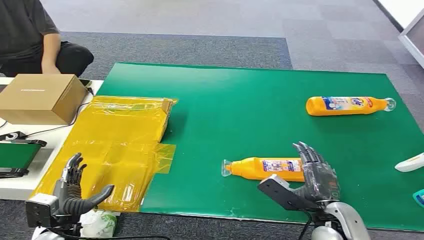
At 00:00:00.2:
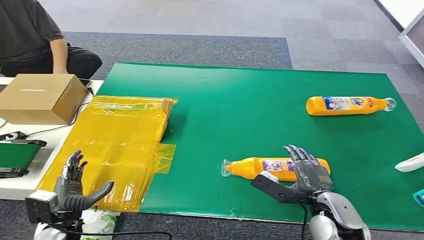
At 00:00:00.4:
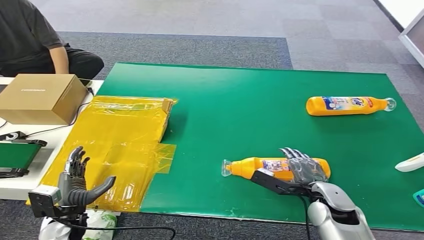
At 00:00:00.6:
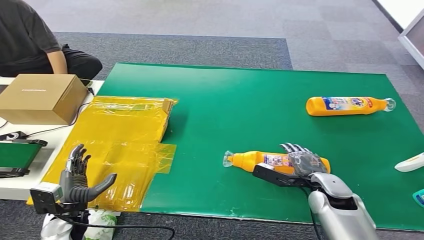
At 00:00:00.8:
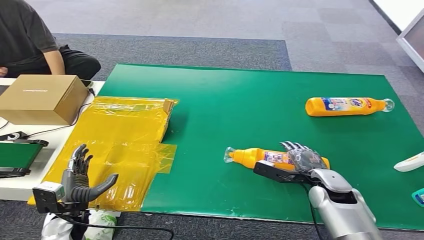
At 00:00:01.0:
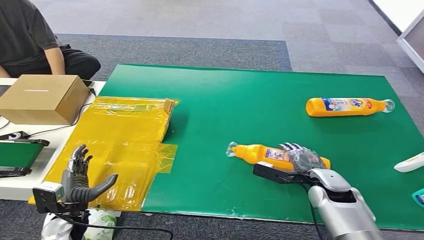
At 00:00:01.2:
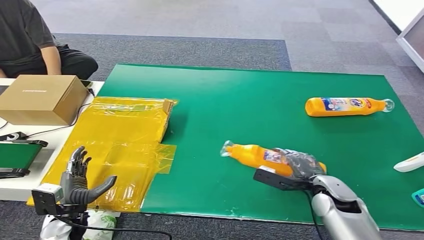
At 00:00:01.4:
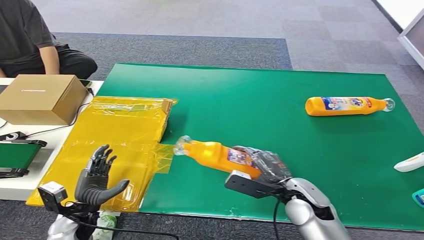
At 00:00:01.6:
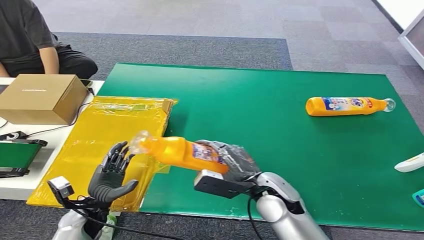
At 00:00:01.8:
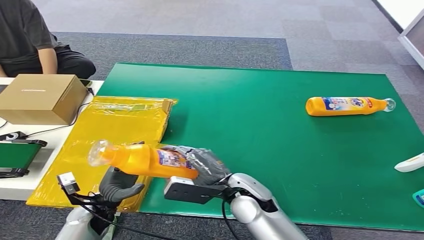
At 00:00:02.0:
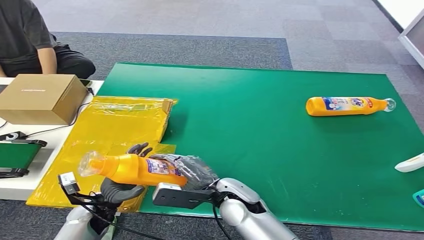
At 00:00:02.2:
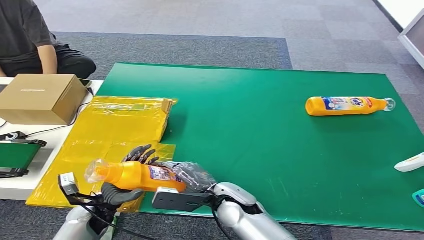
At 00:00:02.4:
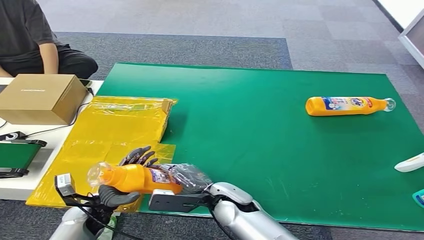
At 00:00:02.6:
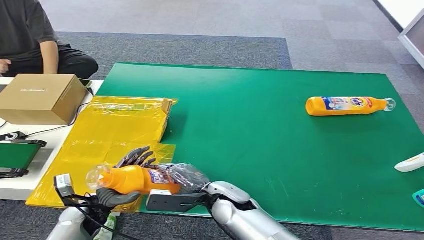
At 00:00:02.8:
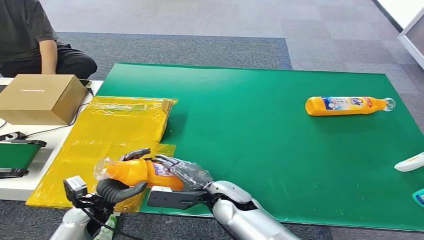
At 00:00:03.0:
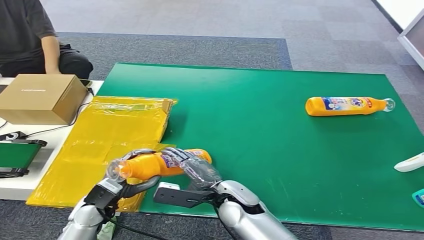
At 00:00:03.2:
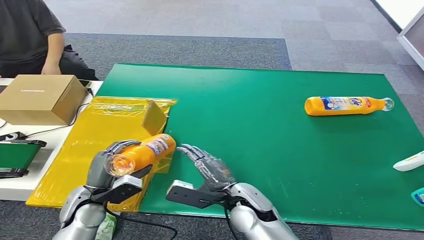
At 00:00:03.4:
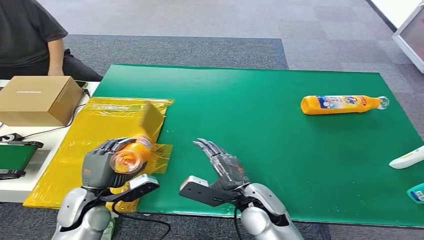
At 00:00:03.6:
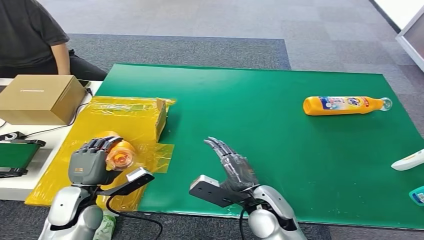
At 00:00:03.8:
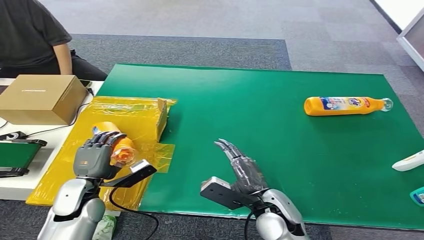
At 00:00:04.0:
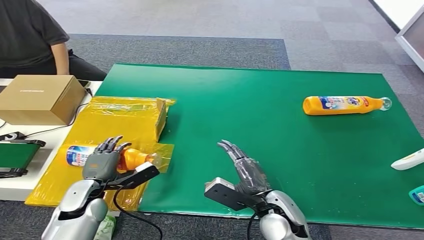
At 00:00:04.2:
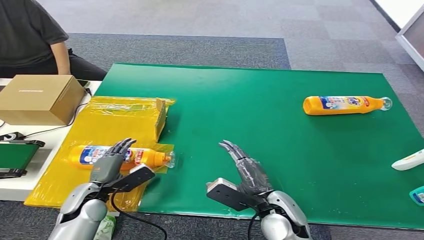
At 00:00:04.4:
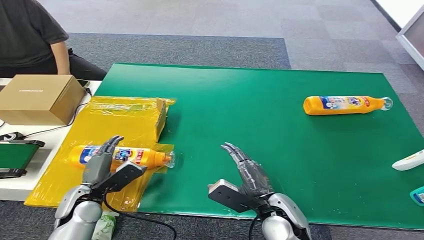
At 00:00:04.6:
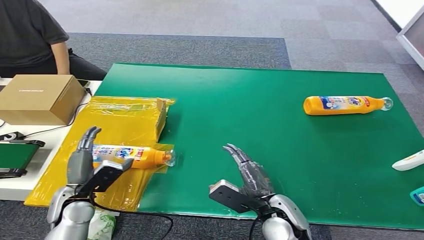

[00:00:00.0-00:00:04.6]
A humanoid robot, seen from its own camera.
Step, 00:00:00.0 to 00:00:01.4: Pick up the bottle from the table.
Step, 00:00:01.6 to 00:00:04.6: Turn the bottle to the front side.
00:00:01.6 to 00:00:03.0: The right hand heads to the left, covering some 10 cm.
00:00:03.0 to 00:00:04.6: The right hand shifts some 10 cm to the right.
